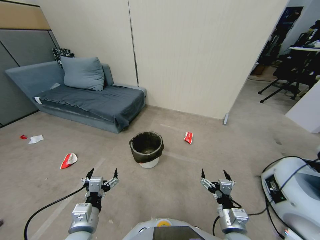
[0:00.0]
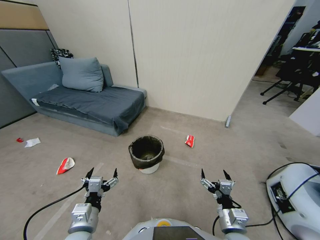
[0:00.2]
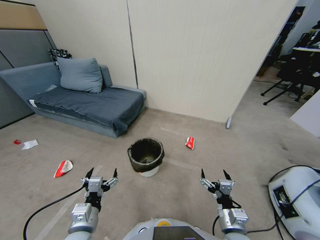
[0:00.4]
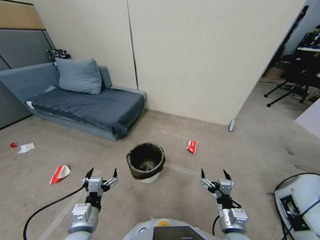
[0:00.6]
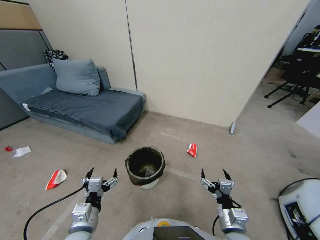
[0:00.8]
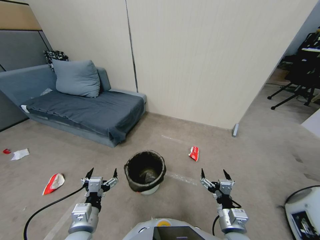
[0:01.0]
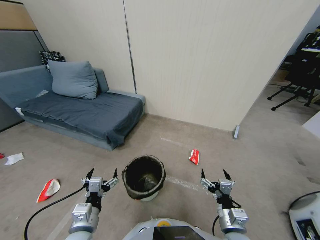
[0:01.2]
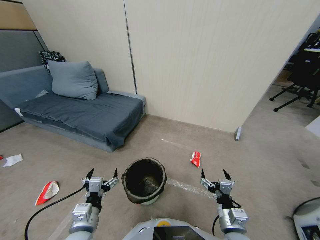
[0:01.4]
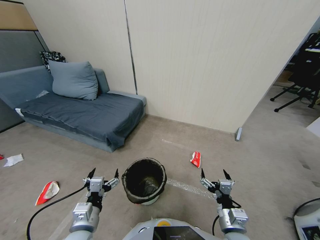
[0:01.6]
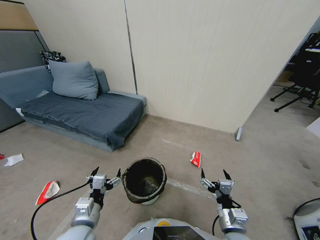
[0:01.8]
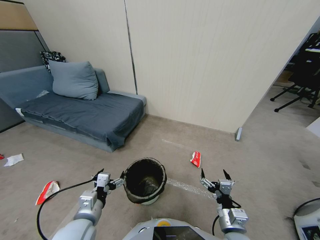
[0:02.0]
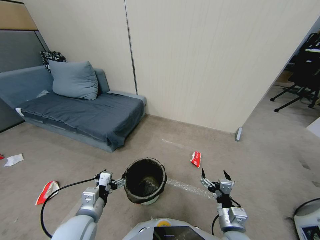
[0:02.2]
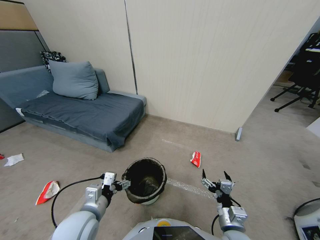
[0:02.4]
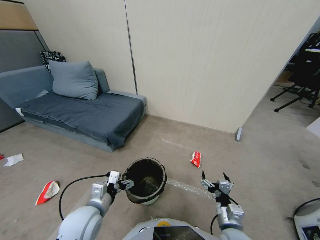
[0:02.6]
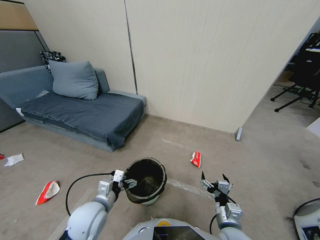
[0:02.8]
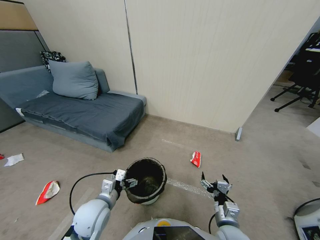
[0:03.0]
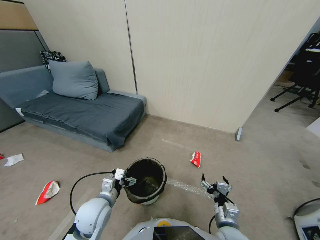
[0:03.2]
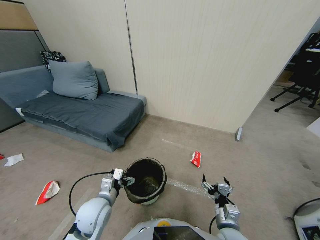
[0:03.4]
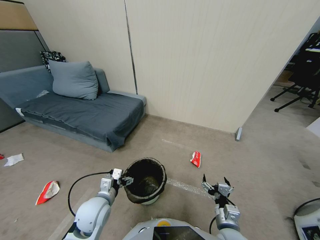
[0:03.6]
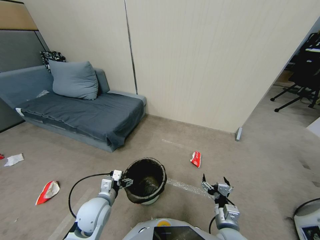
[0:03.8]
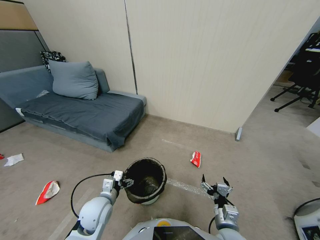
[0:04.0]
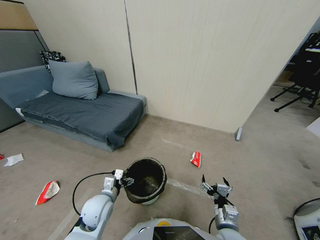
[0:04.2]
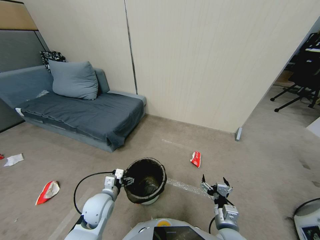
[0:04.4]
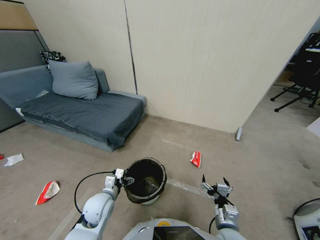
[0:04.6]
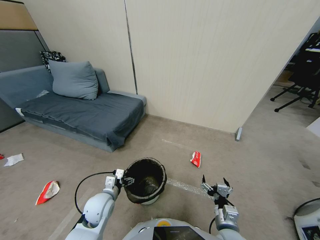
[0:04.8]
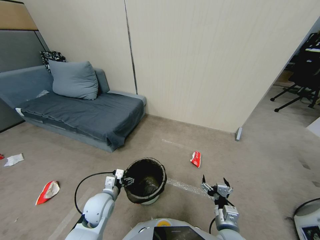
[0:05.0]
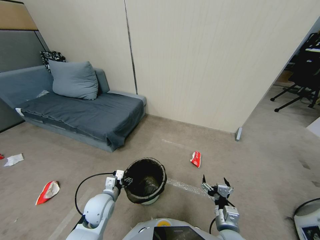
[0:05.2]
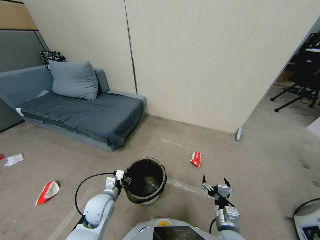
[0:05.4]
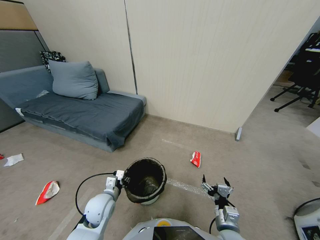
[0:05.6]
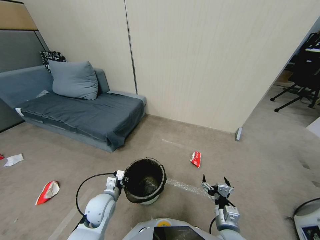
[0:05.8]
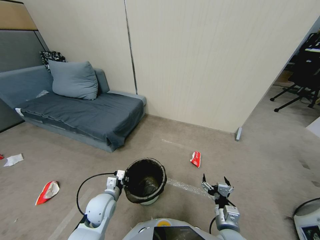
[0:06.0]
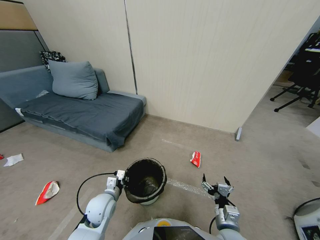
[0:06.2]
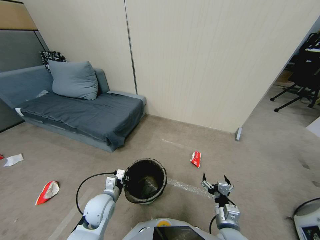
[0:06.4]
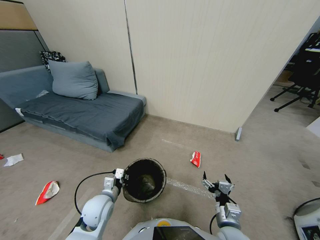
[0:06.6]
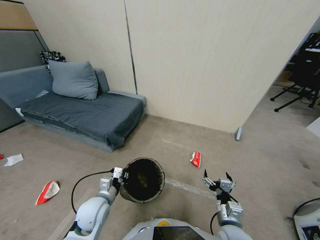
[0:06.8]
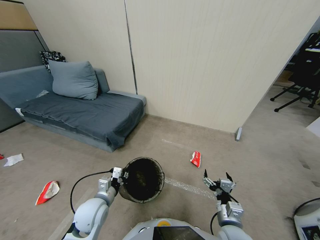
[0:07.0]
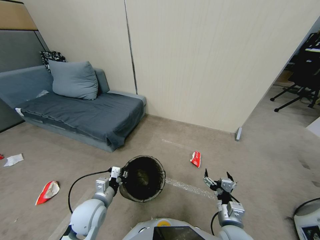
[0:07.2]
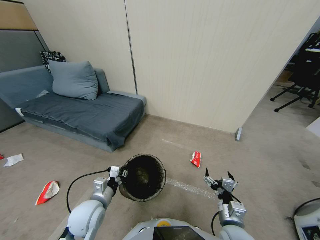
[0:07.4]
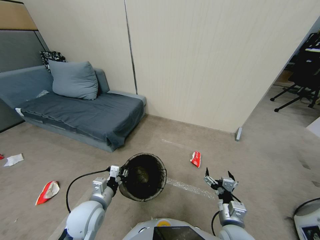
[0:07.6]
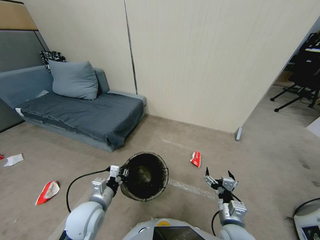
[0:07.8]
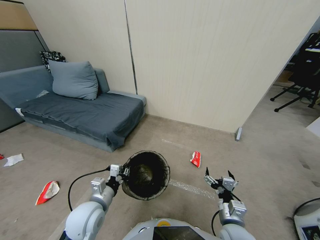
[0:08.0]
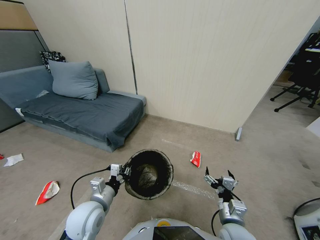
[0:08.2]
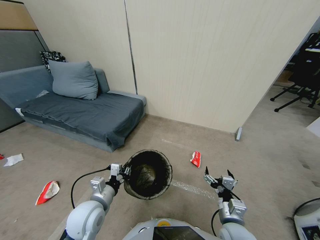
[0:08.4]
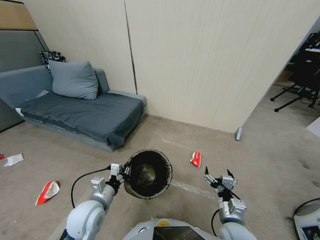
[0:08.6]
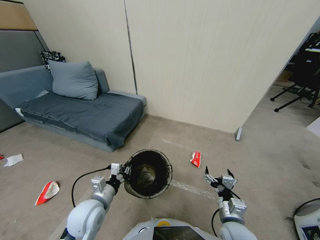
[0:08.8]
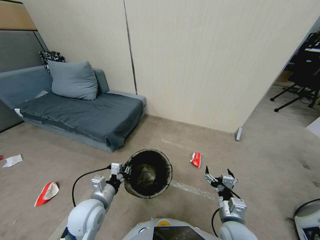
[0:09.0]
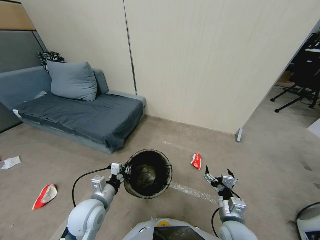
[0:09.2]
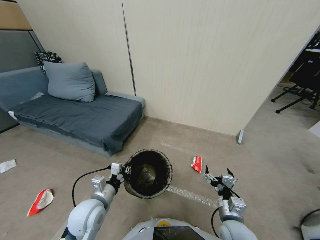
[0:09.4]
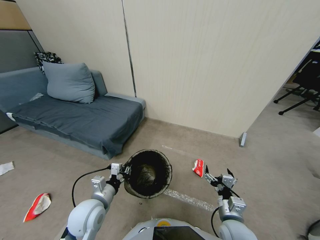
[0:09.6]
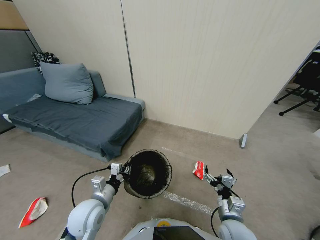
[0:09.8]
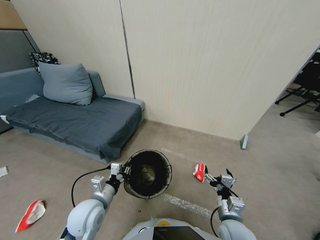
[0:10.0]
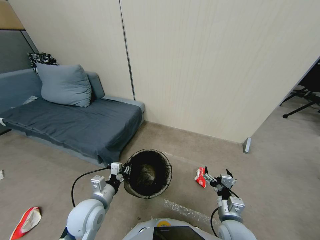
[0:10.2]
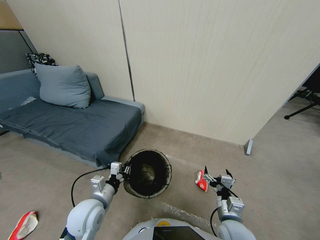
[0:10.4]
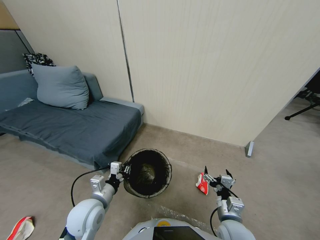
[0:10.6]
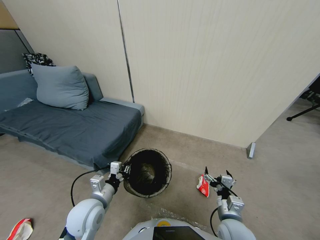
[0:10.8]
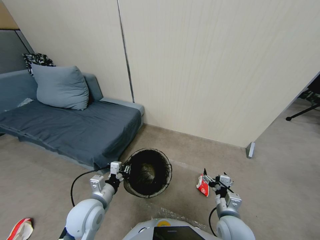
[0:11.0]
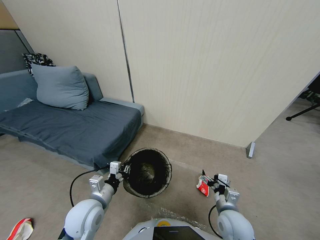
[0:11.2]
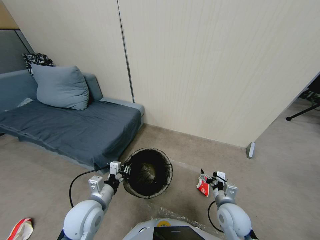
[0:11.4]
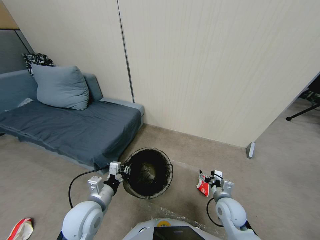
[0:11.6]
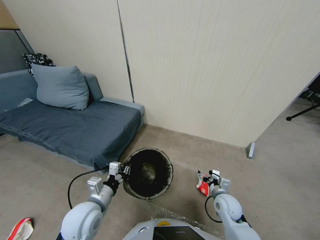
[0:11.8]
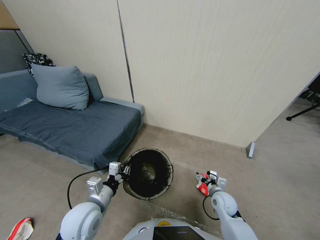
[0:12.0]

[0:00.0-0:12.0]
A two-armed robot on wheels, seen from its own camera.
Task of the whole recording: Pick up the trash bin, then pick up the garbage from the floor and place it into the trash bin.
0:01.6 to 0:03.0: The left gripper moves forward, roughly 10 cm.
0:03.0 to 0:04.4: The grippers make only small movements.
0:04.4 to 0:06.0: The left gripper closes its fingers.
0:06.0 to 0:07.6: The left gripper shifts some 5 cm upward.
0:07.6 to 0:09.0: The grippers stay close to where they were, moving slightly.
0:09.0 to 0:10.4: The two grippers keep their place.
0:10.4 to 0:12.0: The right gripper moves forward, downward and to the right, roughly 15 cm.

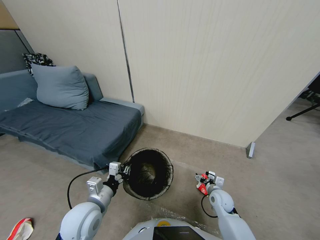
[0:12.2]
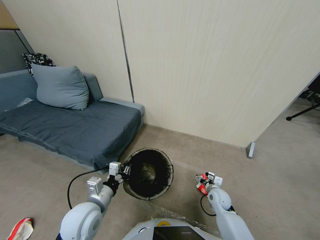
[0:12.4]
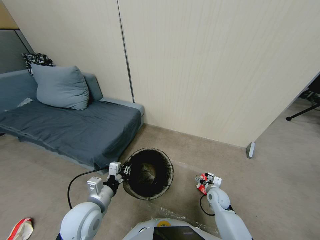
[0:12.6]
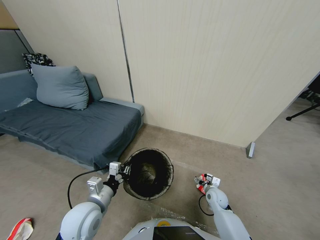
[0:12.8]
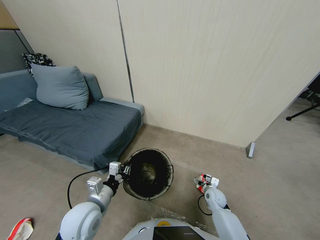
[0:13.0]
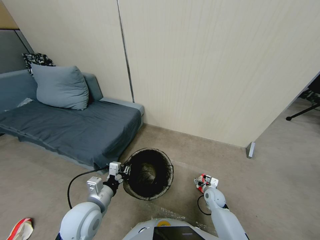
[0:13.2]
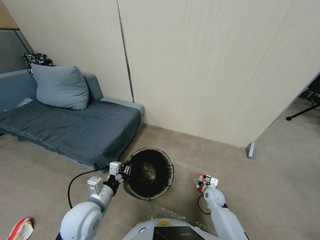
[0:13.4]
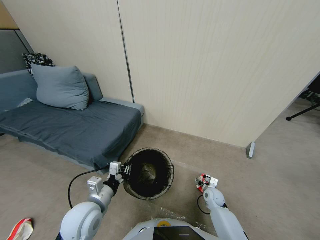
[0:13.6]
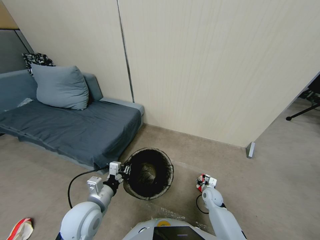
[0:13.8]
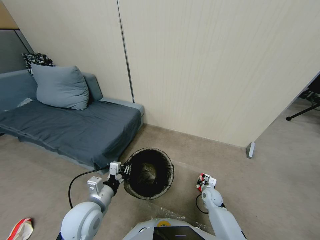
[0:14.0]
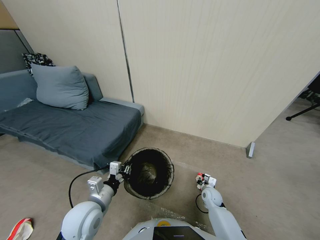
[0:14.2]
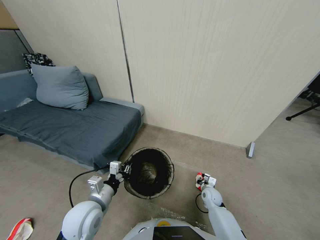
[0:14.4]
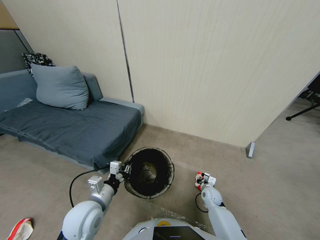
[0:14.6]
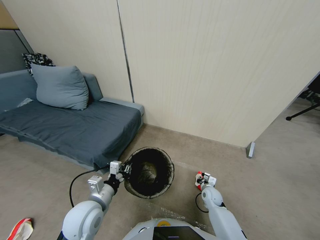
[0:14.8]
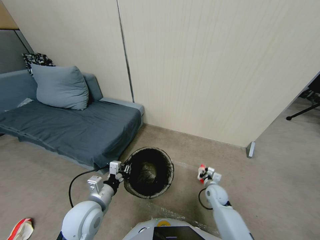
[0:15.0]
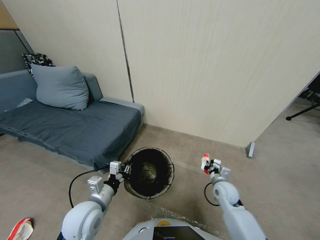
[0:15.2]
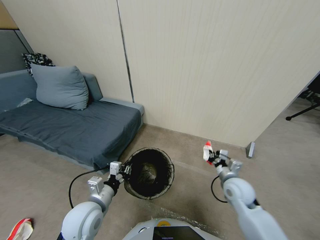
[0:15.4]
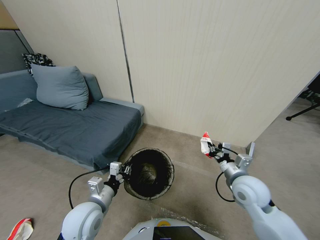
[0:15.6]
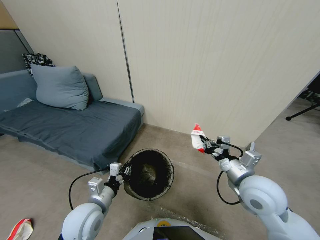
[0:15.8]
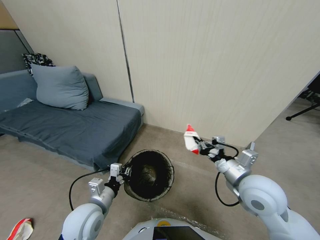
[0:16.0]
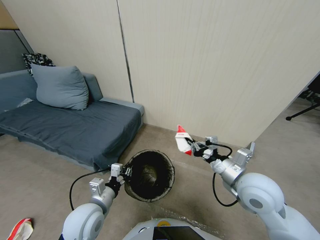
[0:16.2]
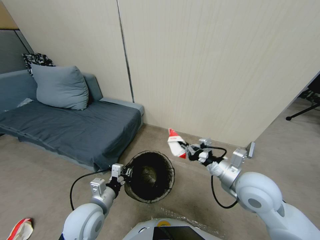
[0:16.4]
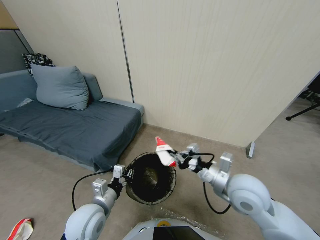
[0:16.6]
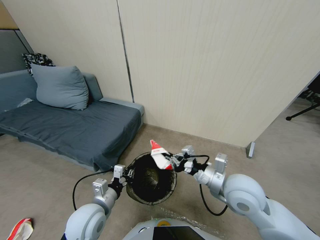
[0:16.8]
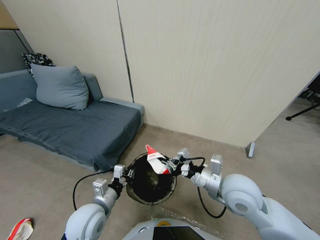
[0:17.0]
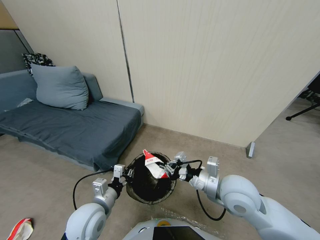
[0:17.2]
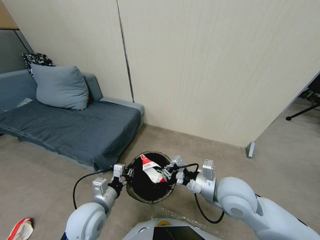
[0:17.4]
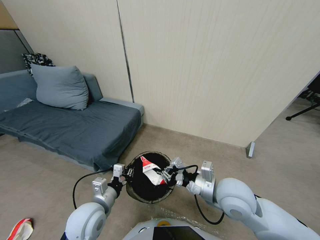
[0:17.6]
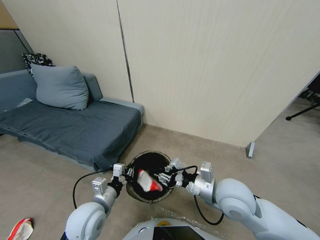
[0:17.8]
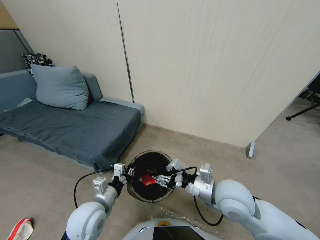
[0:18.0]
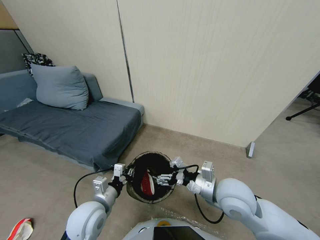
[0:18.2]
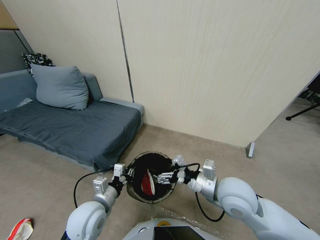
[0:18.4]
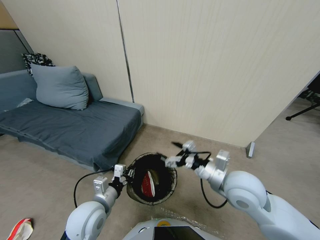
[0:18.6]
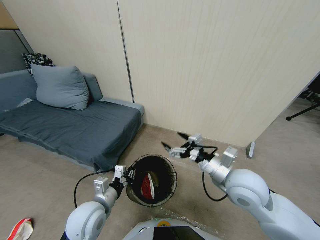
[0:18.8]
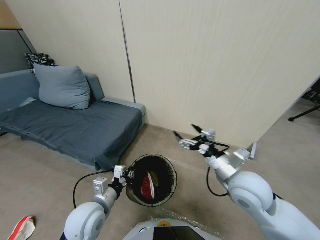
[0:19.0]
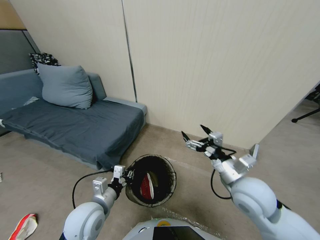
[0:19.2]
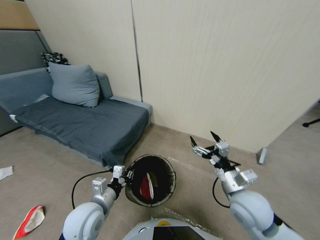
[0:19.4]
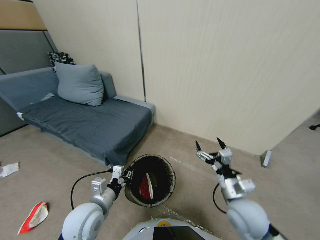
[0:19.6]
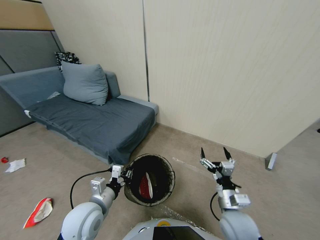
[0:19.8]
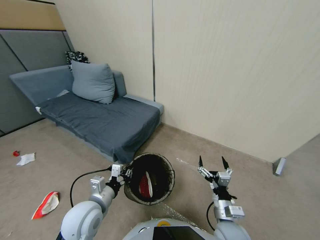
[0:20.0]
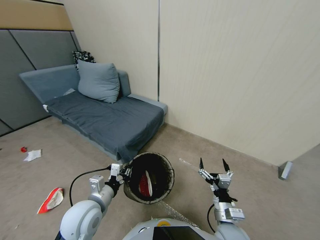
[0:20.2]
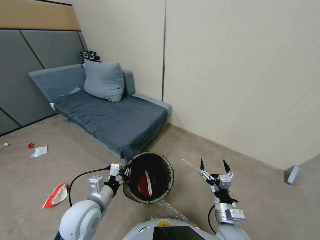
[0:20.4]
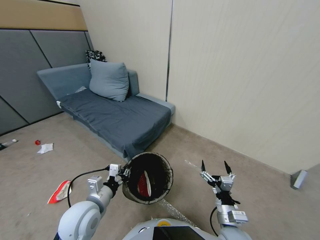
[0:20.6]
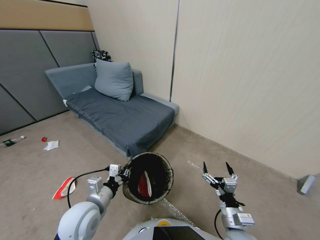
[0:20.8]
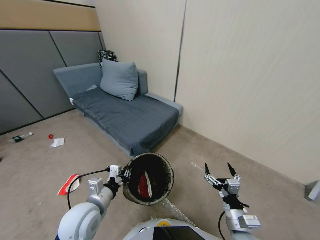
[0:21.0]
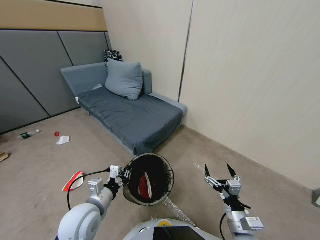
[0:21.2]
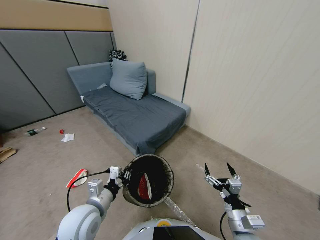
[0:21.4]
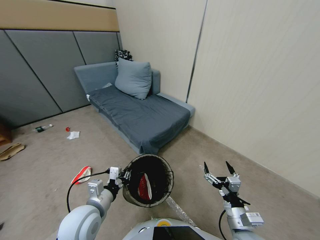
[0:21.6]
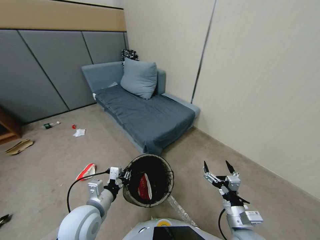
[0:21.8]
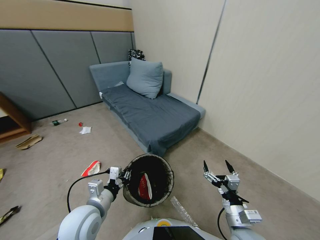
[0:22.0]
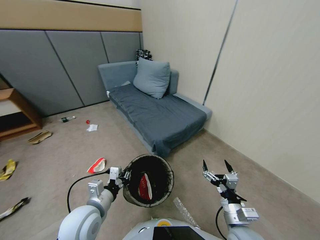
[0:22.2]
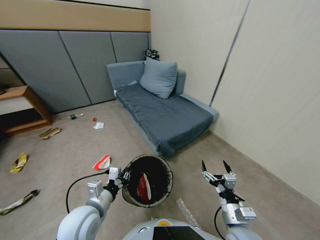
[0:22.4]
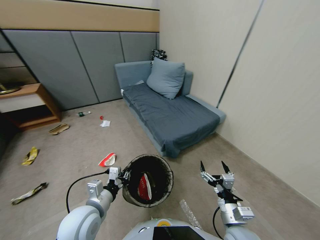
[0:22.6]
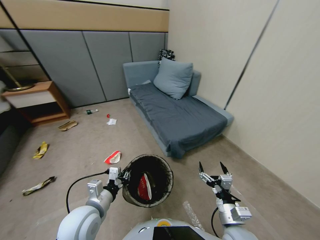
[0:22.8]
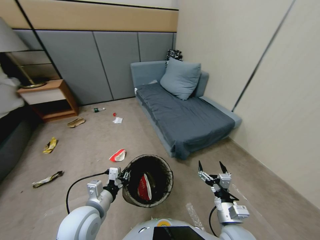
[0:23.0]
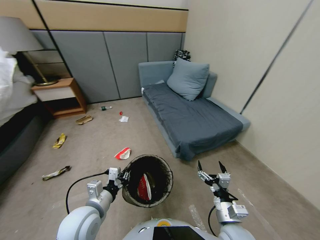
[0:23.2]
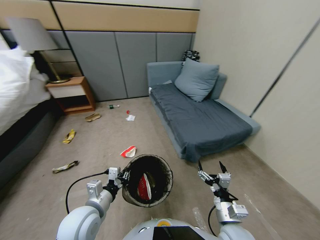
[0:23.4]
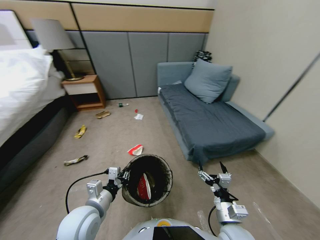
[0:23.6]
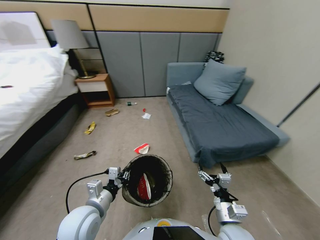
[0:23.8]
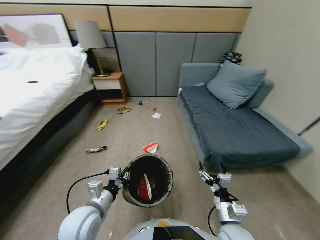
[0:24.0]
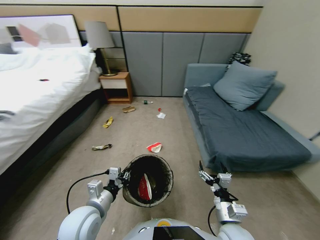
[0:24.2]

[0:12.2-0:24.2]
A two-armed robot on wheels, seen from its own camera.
Task of the whole recording: Pick up the trash bin, then pick up the garbage from the floor and place it into the trash bin.
0:12.2 to 0:13.8: The right gripper heads downward, covering some 10 cm, and closes its fingers.
0:13.8 to 0:15.2: The right gripper heads upward, covering roughly 10 cm, and closes.
0:15.2 to 0:16.6: The right gripper goes roughly 25 cm upward.
0:16.6 to 0:18.2: The right gripper opens up.
0:18.2 to 0:19.8: The right gripper travels downward and backward by approximately 15 cm.
0:19.8 to 0:21.2: The right gripper moves roughly 5 cm.
